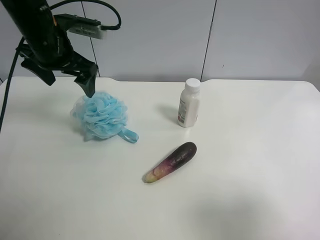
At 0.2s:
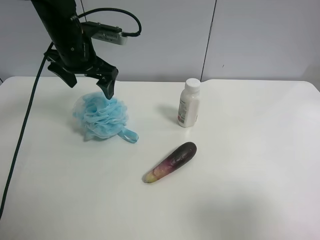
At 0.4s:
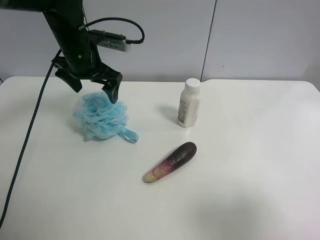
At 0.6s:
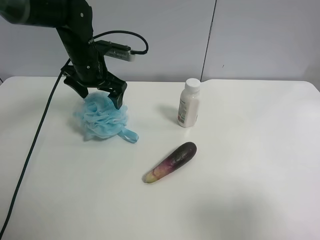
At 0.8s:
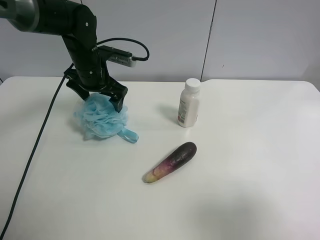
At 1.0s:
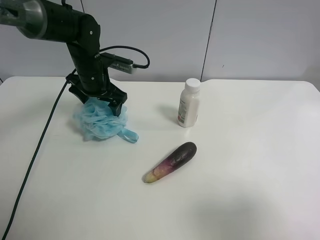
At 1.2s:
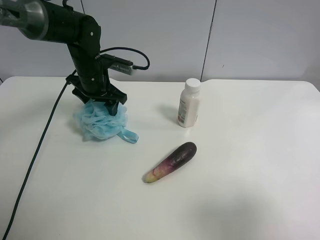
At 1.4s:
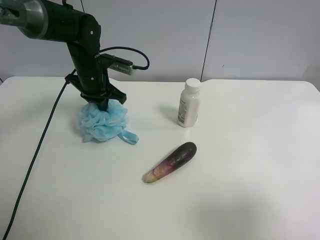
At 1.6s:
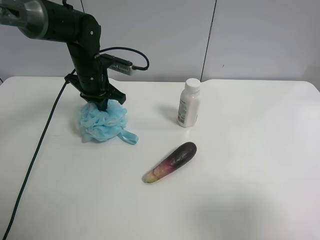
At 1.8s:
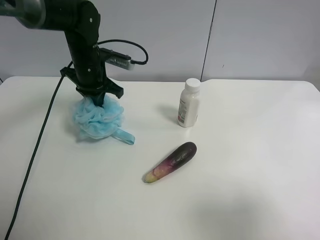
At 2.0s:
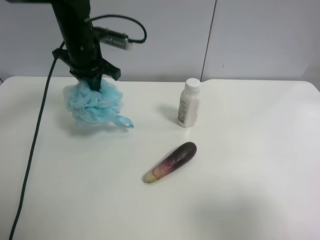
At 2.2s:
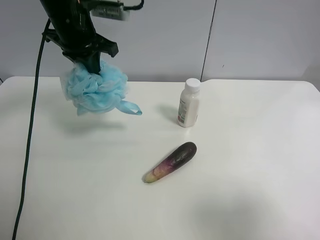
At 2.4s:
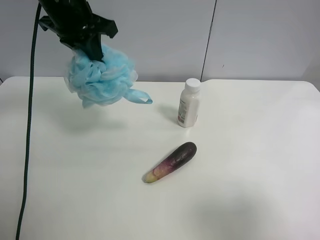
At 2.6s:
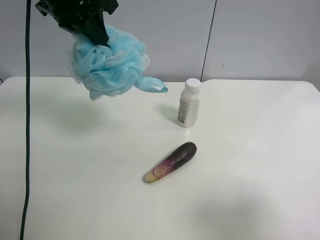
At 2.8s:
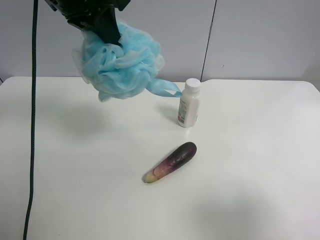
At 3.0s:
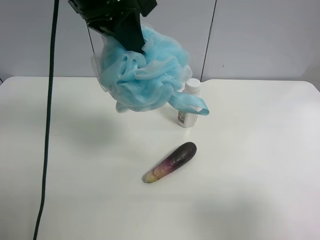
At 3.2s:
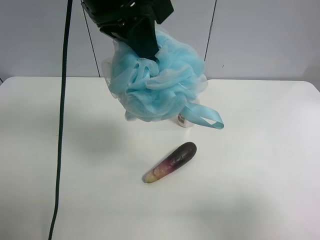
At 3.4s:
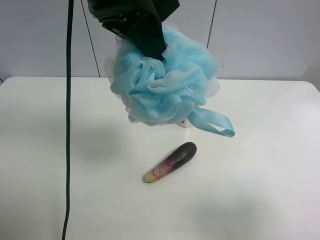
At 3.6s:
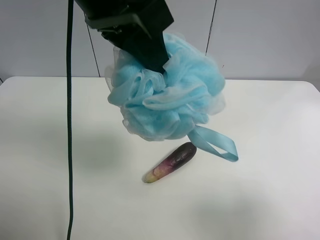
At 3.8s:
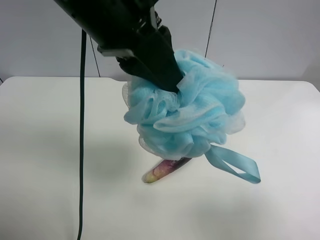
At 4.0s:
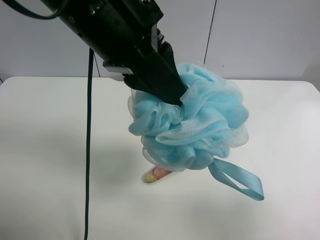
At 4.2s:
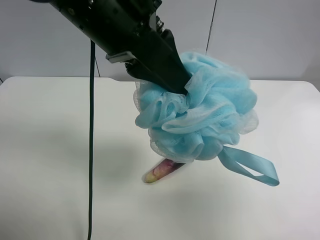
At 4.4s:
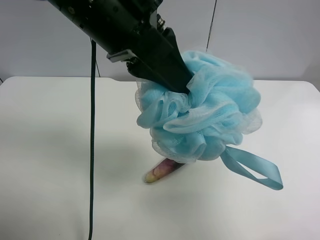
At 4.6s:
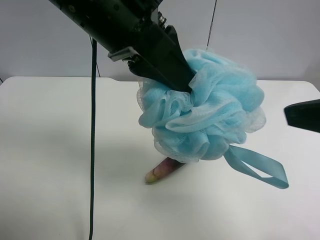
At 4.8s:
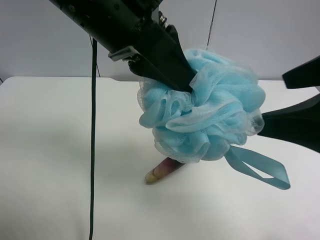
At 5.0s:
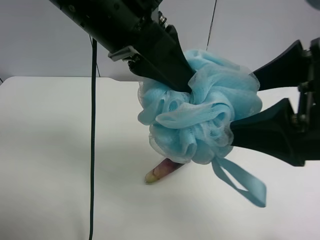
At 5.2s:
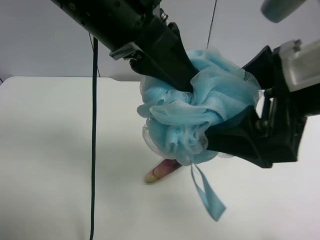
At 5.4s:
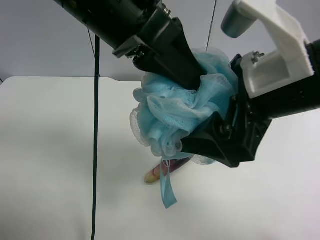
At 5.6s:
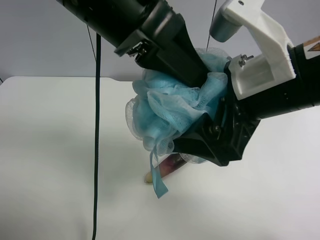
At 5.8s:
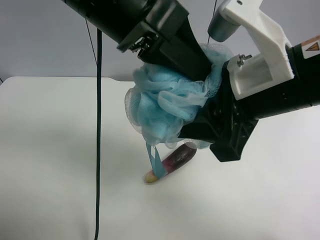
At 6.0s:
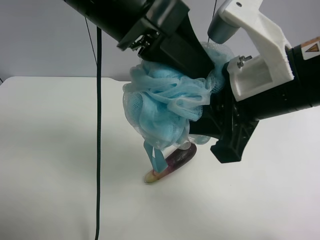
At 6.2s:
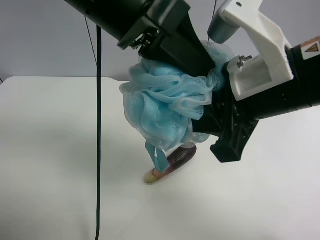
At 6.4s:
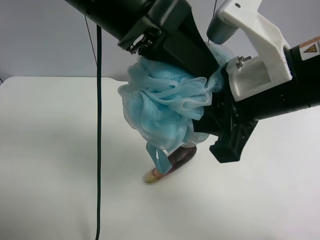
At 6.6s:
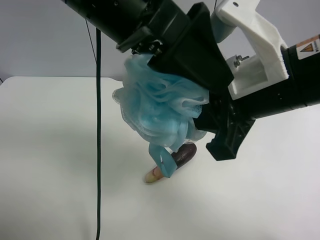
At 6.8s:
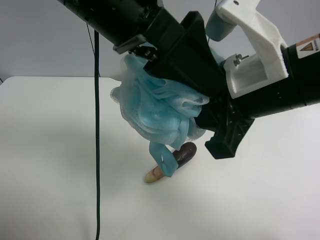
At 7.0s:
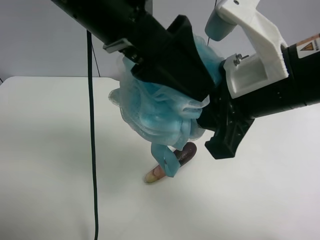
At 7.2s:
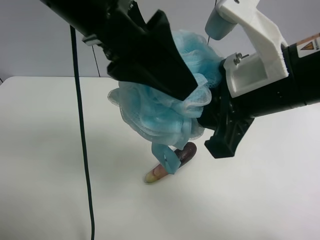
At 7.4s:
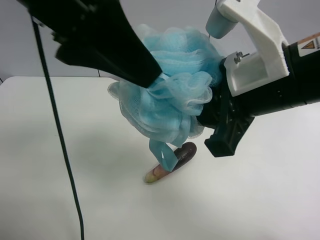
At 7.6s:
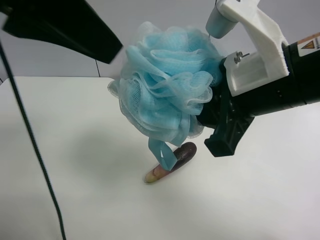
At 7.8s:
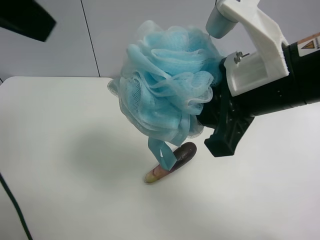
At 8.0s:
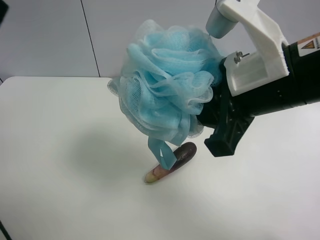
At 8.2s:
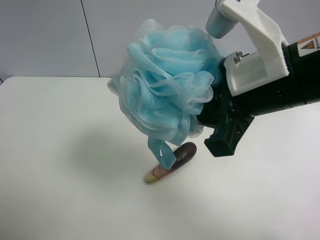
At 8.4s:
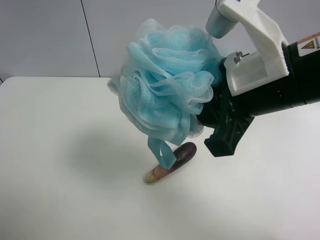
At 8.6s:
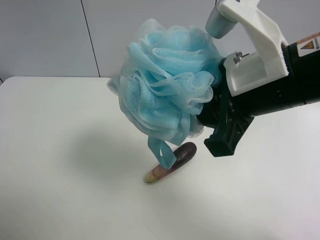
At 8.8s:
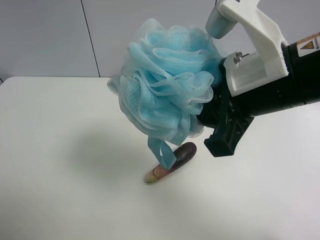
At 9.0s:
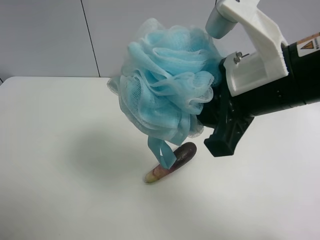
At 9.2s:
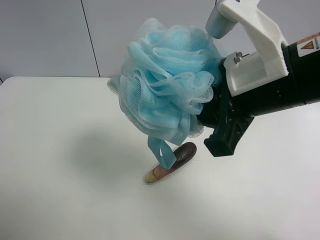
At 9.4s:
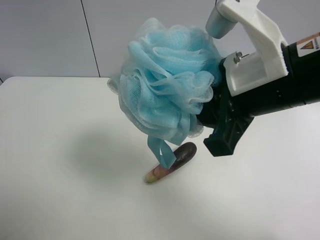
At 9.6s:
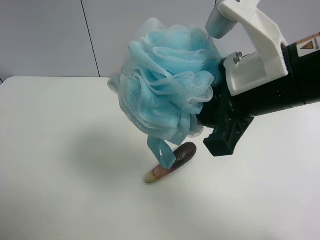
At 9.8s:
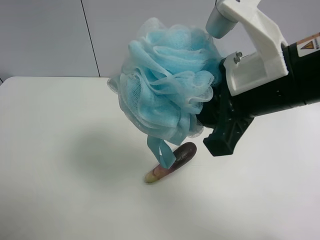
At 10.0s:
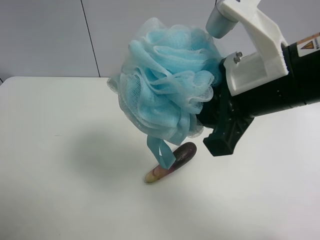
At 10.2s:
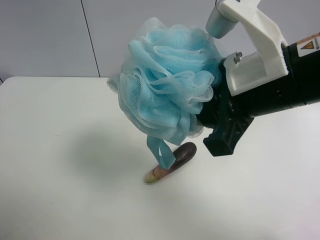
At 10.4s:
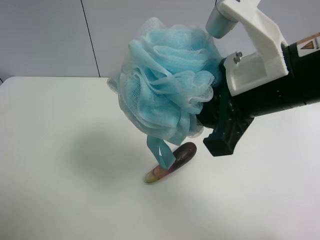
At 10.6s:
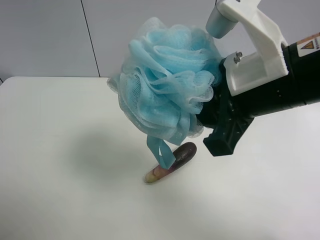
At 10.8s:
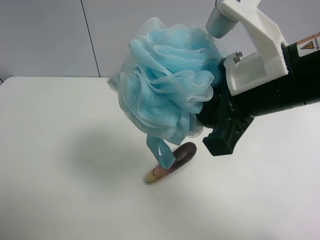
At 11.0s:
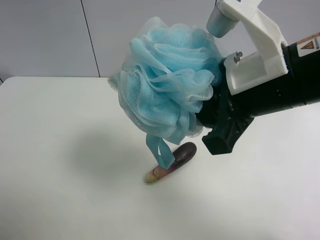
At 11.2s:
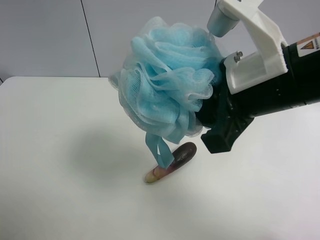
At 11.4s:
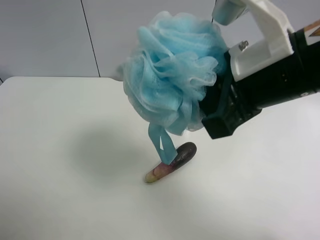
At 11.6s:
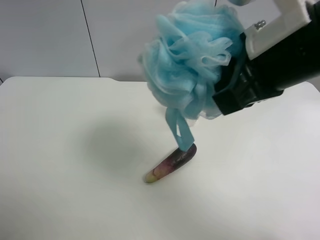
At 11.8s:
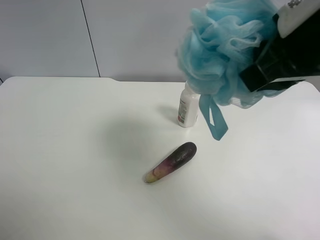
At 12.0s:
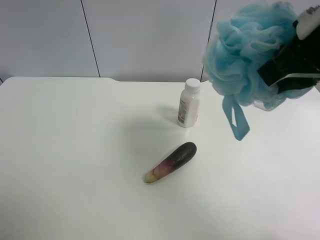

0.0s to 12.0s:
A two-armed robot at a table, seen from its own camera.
Task of the whole recording: use the left gripper to pick up the item and transfer it from the left gripper to the right gripper.
0.0s to 1.6s: The left gripper is displaced downward by about 10 cm, and closes its fingers.
1.6s to 3.0s: The left gripper is displaced upward and backward by some 25 cm.
3.0s to 4.4s: The right gripper is displaced upward and forward by about 10 cm; the left gripper is displaced backward by roughly 5 cm.
4.4s to 6.0s: The right gripper goes roughly 15 cm to the left and forward, and closes.
6.0s to 7.6s: The left gripper shifts some 10 cm to the left and upward, and opens up.
7.6s to 9.0s: The left gripper travels backward, to the left and downward by roughly 30 cm.
9.0s to 10.4s: The grippers make only small movements.
10.4s to 12.0s: The right gripper heads to the right, covering roughly 5 cm.

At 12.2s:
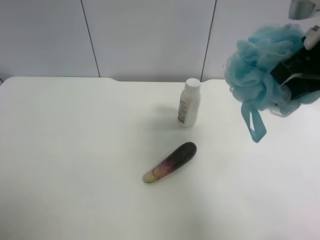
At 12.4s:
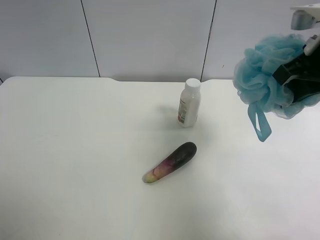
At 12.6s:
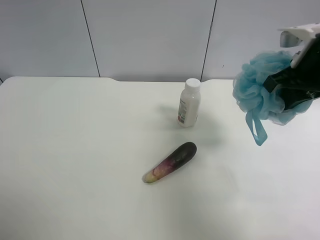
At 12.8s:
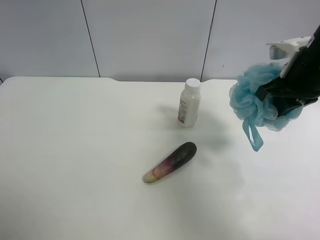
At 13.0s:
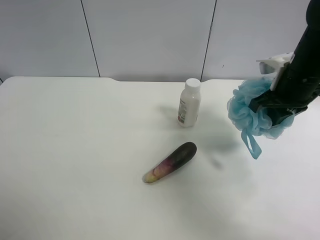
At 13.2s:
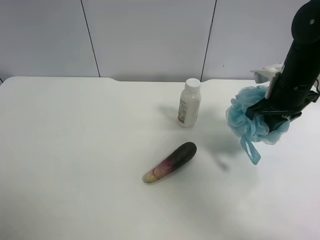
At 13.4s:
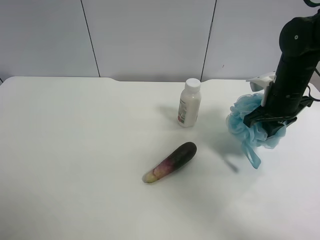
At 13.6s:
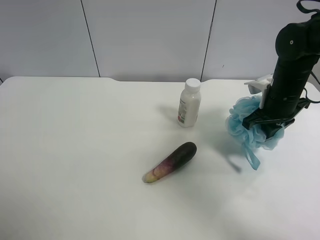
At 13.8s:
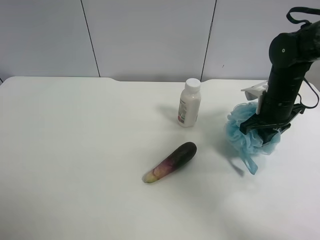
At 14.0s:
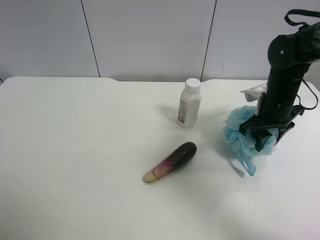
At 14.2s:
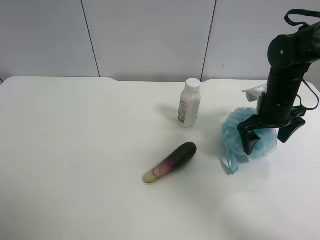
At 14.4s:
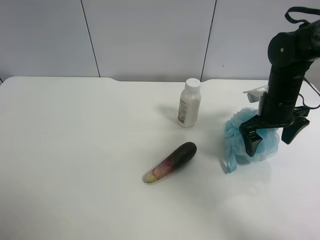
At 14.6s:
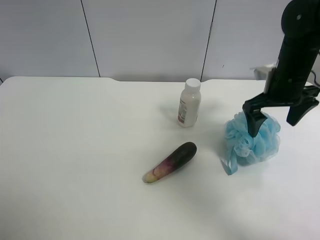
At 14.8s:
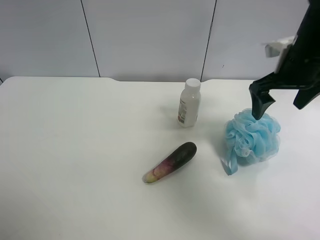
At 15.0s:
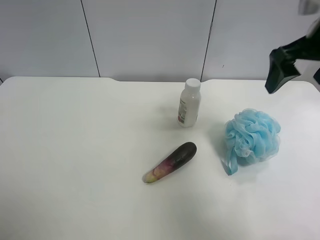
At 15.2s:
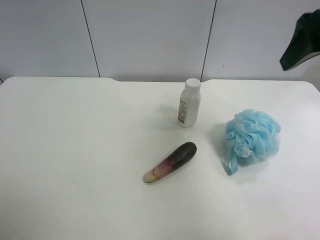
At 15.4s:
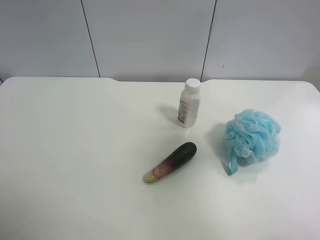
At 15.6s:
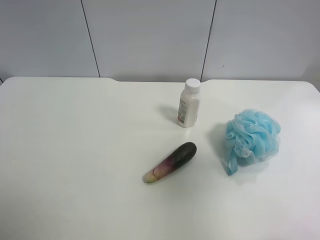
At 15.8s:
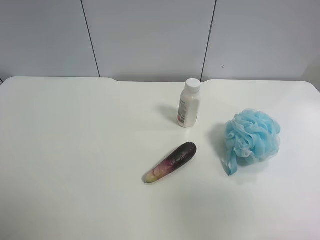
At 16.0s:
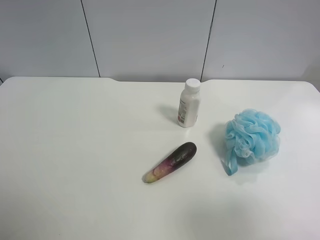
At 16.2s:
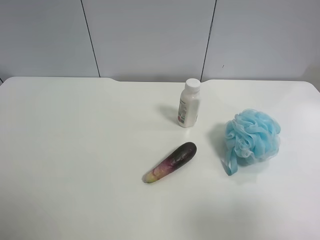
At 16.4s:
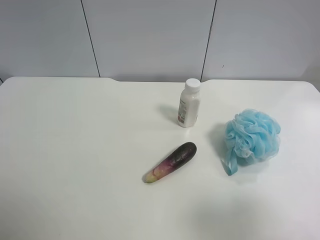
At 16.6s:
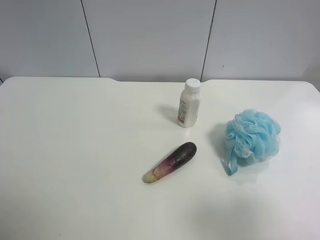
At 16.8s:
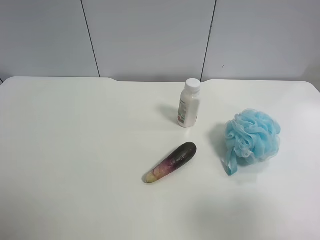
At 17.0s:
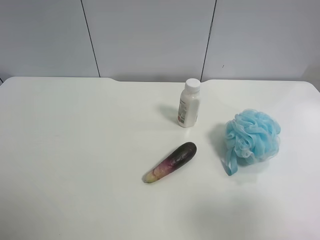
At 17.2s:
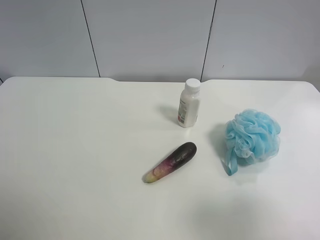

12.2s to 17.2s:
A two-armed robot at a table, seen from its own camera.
Task of the whole recording: use the left gripper to pick up the item and transfer it from the left gripper to the right gripper.
12.2s to 13.8s: The right gripper travels downward and forward by some 20 cm.
13.8s to 15.6s: The right gripper travels backward and upward by roughly 35 cm, and opens its fingers.
15.6s to 17.2s: The right gripper shifts approximately 10 cm downward and backward.

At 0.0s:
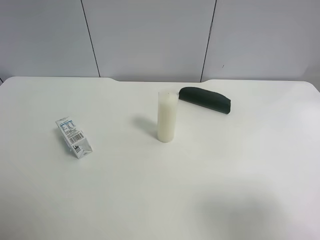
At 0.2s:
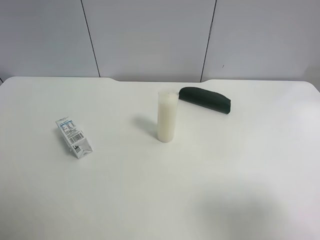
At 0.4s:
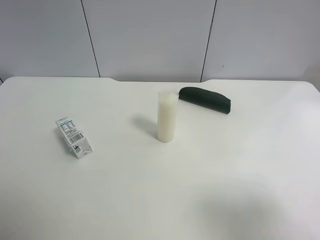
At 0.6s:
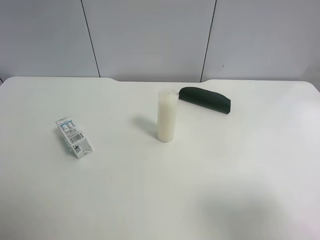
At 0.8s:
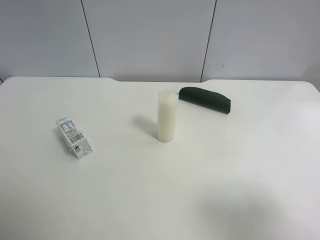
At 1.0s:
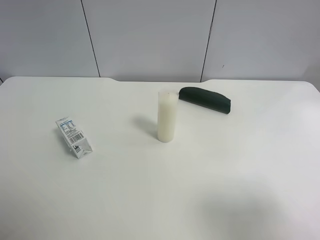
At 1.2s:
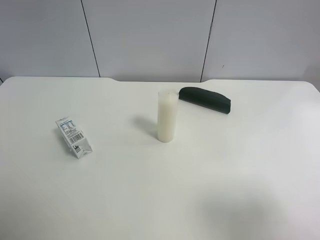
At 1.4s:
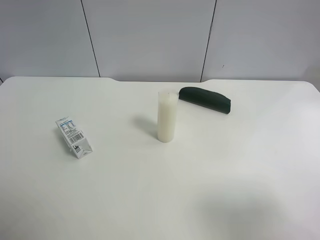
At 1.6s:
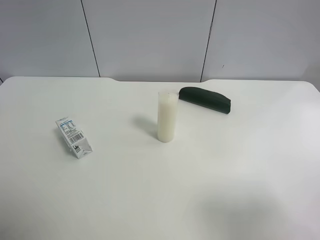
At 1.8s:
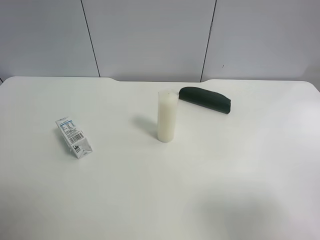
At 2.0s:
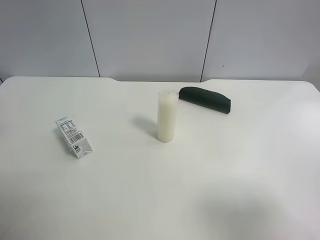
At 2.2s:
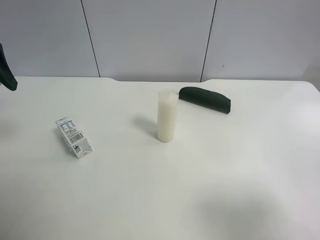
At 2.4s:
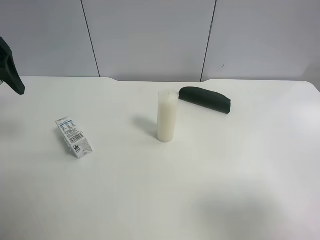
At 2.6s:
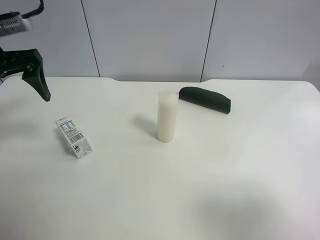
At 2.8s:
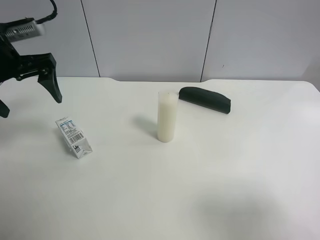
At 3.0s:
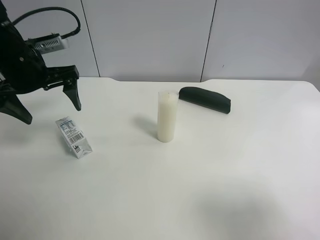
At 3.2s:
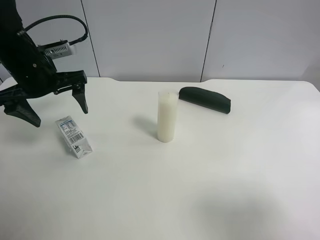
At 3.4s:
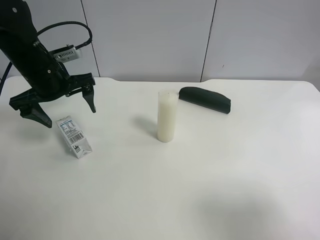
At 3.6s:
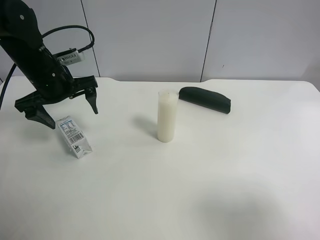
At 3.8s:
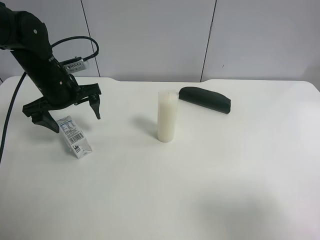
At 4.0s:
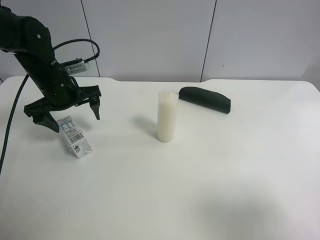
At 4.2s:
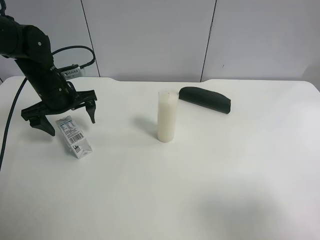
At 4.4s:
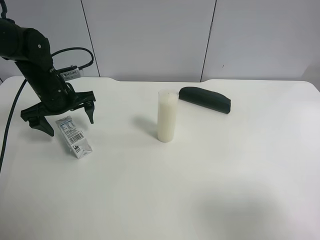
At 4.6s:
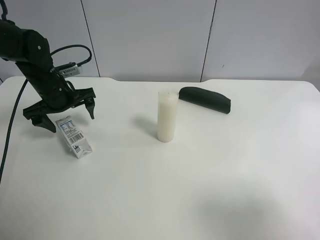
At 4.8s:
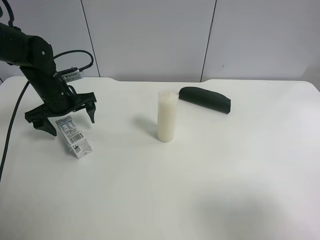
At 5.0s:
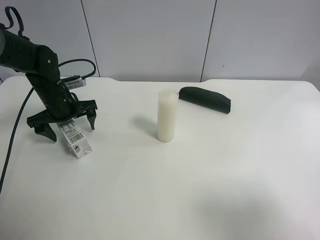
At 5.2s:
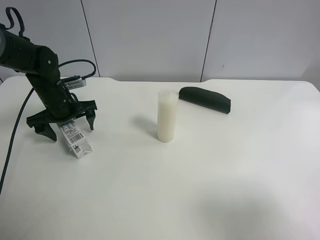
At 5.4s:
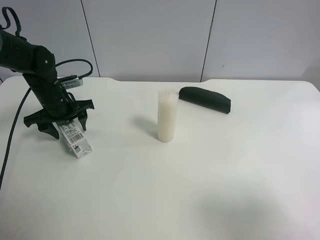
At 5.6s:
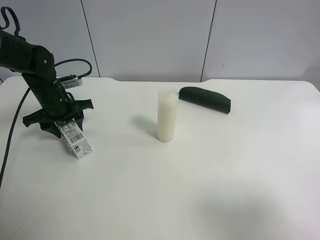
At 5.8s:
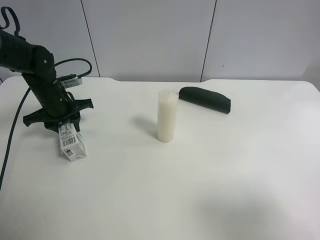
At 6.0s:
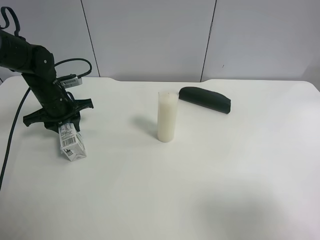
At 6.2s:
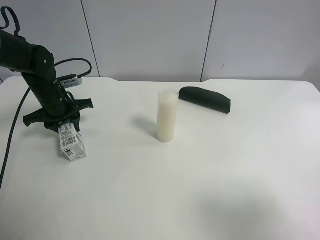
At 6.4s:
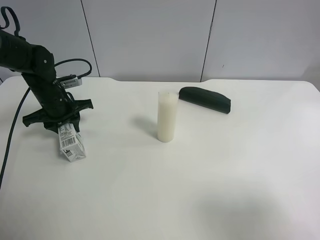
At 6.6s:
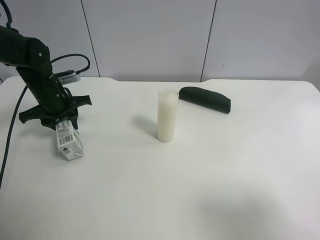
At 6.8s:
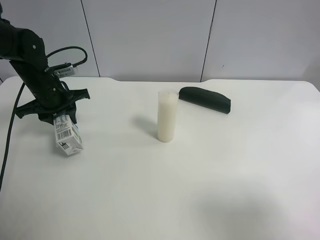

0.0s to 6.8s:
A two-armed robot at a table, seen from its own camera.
Task of the whole recording: use the left gripper to pick up the item and transfer it from the left gripper to the right gripper.
1.4s to 2.8s: The left gripper shifts approximately 20 cm forward and downward.
2.8s to 4.0s: The left gripper goes about 10 cm downward and forward.
4.0s to 5.4s: The left gripper travels downward by some 5 cm, and closes up.
5.4s to 6.8s: The left gripper closes up.
